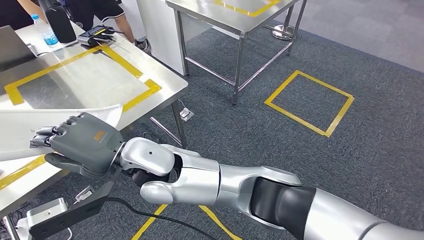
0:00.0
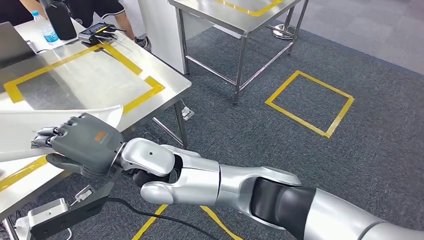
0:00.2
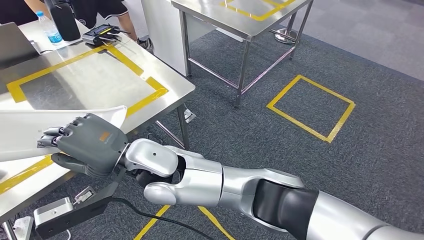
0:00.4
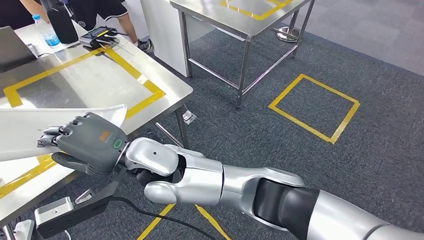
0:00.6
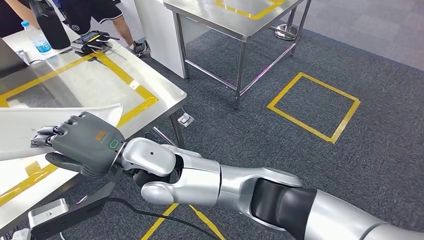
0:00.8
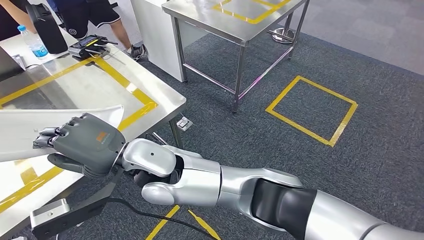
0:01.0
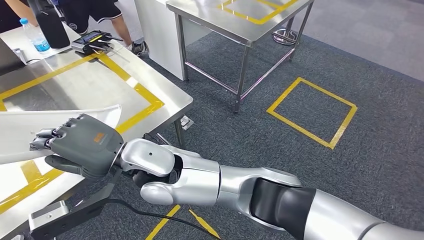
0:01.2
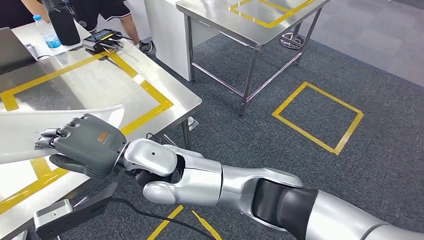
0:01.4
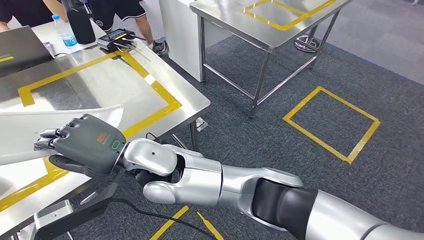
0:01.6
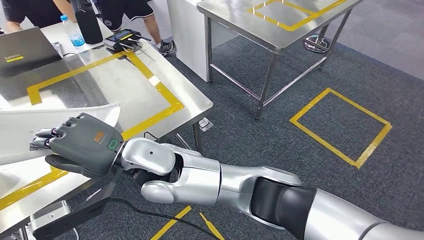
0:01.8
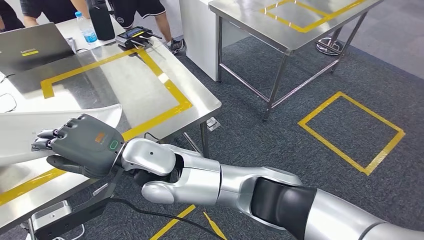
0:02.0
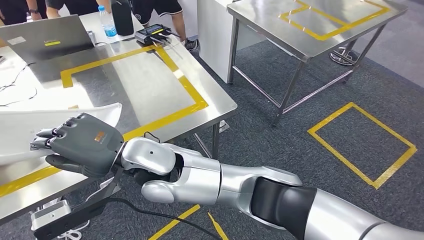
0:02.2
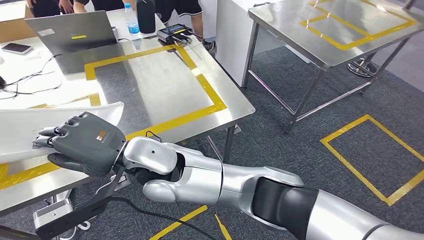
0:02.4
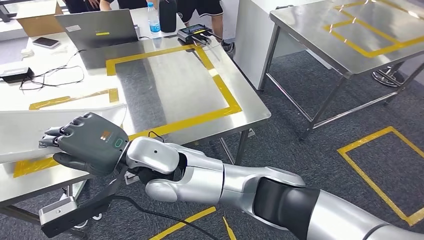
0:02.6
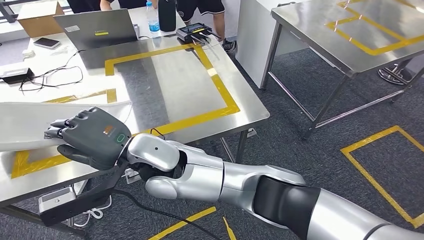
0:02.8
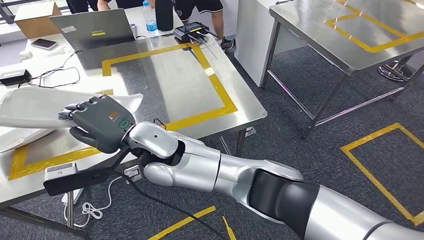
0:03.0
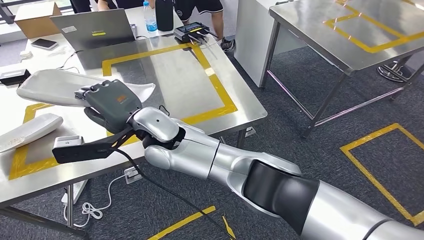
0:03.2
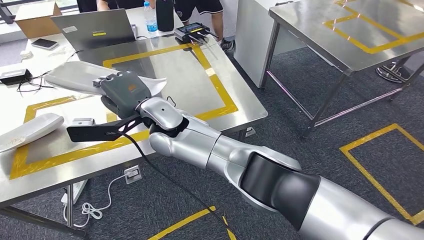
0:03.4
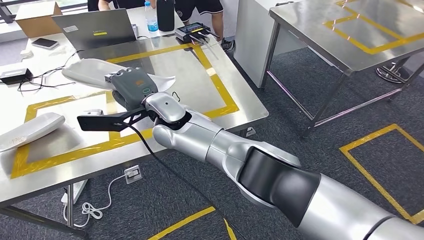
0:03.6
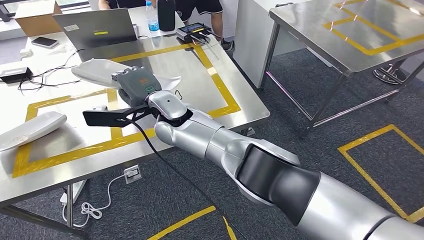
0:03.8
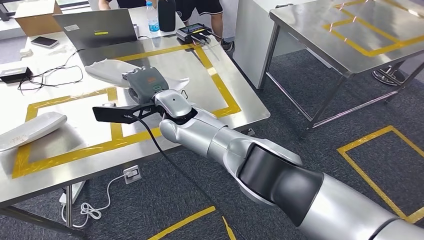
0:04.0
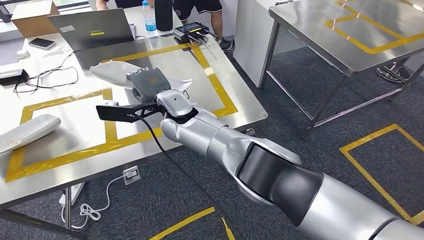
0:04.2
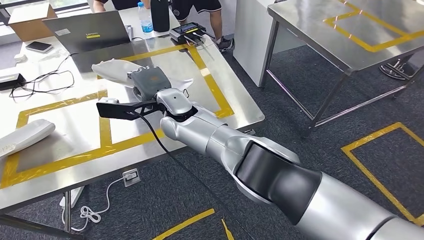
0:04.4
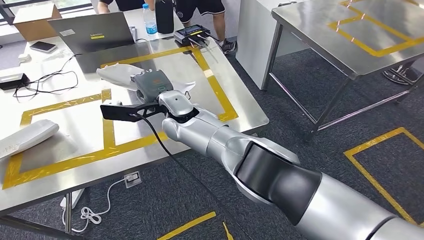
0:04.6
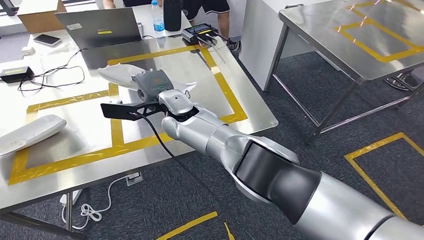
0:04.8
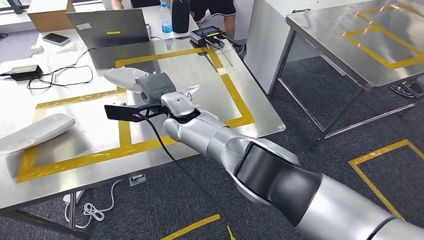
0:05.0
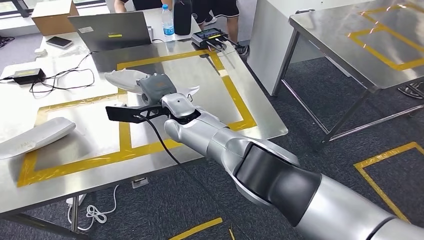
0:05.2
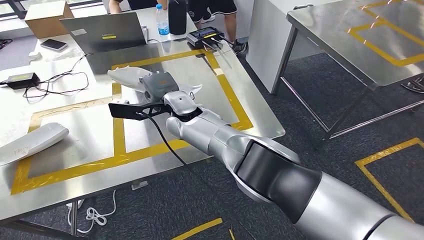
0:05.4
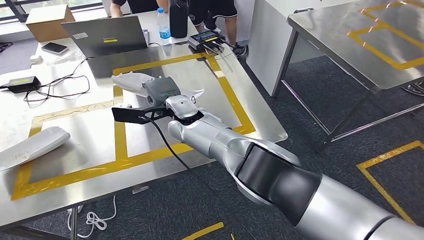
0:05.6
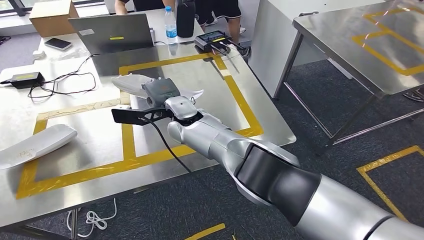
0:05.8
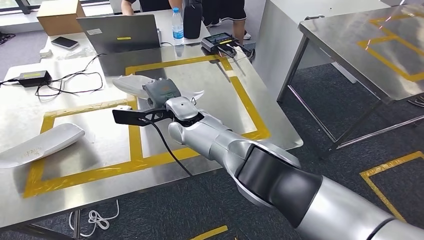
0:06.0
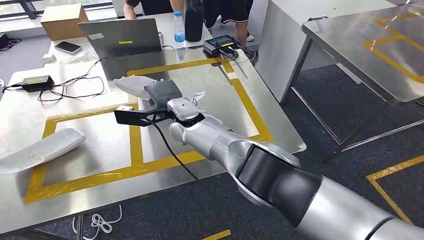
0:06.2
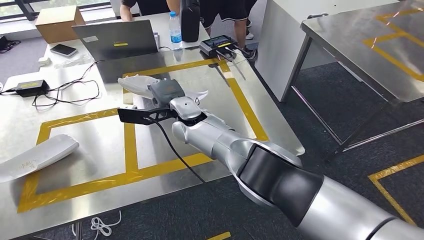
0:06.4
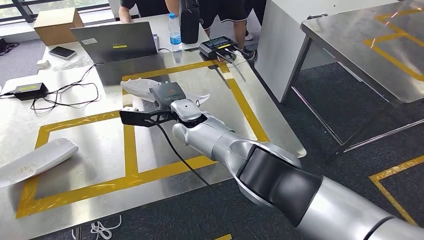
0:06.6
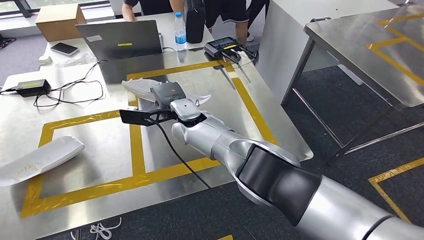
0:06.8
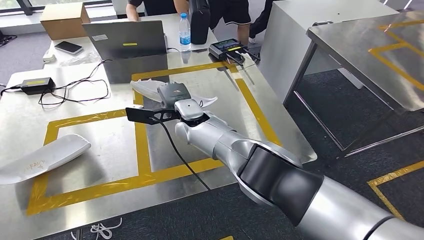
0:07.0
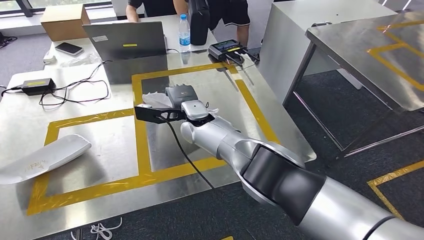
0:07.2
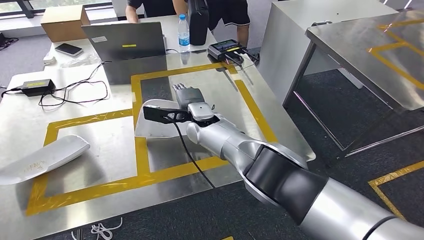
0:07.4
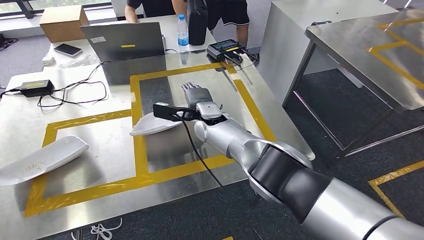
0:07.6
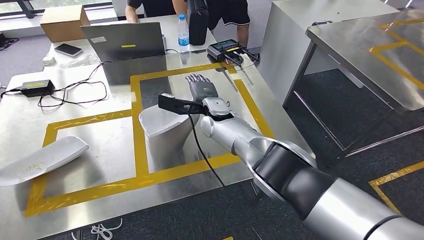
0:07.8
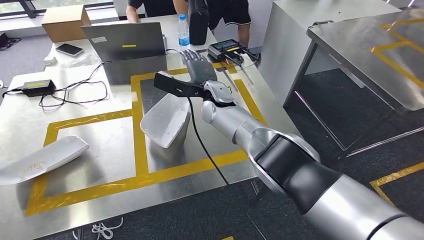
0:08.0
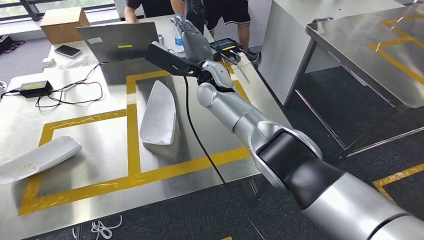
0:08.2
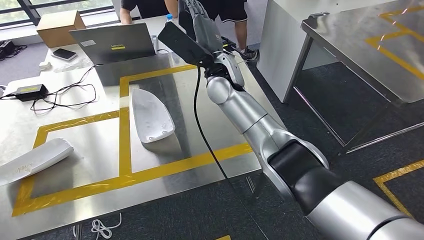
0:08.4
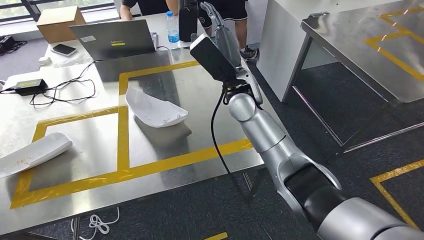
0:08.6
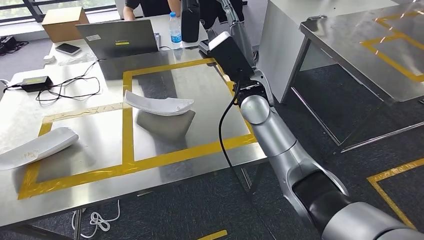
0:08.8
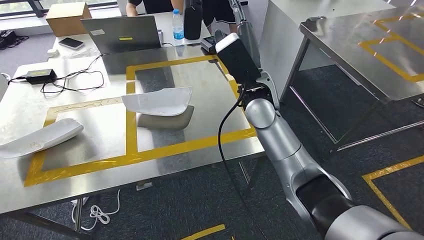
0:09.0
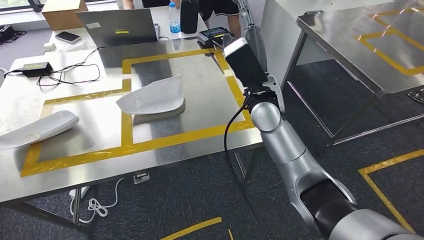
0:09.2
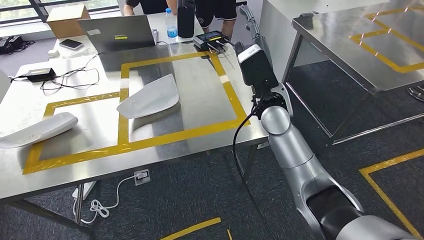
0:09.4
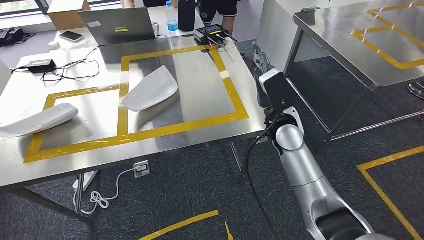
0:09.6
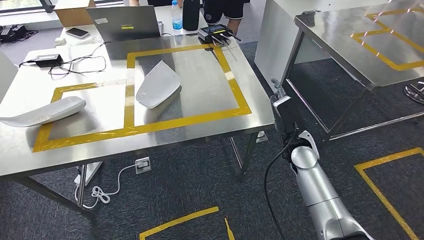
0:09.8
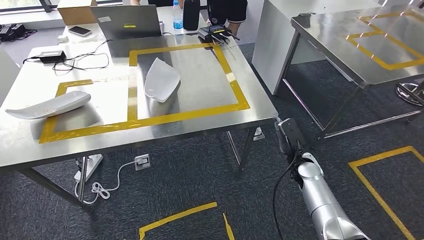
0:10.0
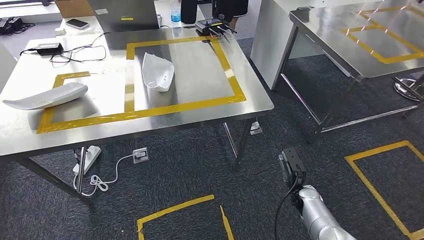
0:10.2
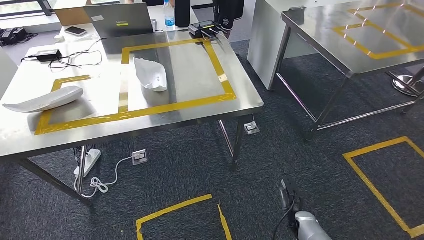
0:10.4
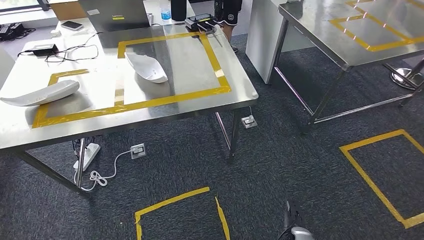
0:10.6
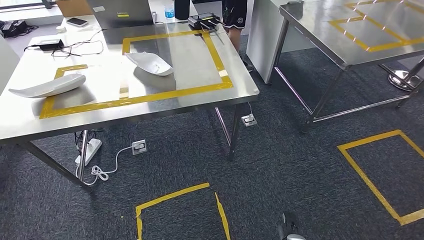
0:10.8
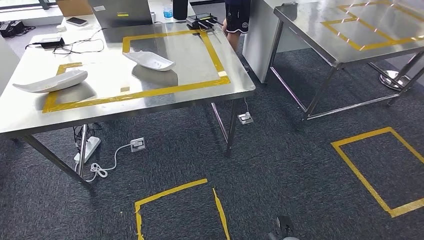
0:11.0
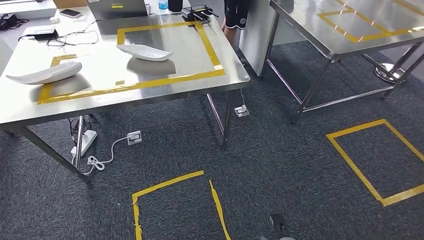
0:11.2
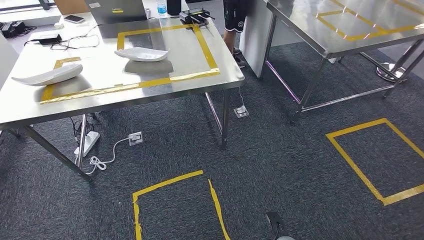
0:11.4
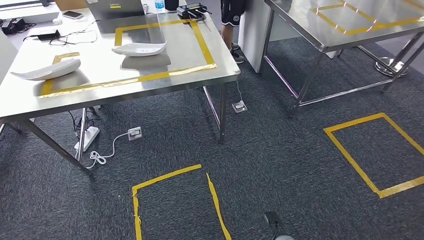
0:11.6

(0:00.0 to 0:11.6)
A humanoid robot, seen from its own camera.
Step, 0:00.0 - 0:08.8: Insert the small parts into the corresponding holes on the workbench.
Step, 0:09.4 - 0:11.6: Move to the initial position of the workbench.
